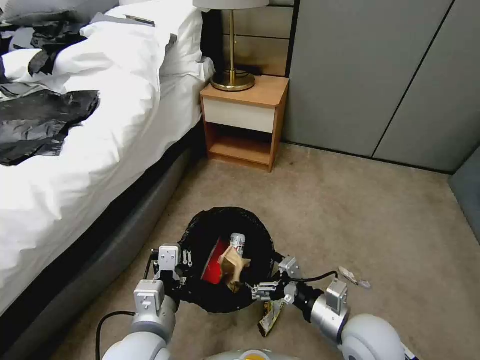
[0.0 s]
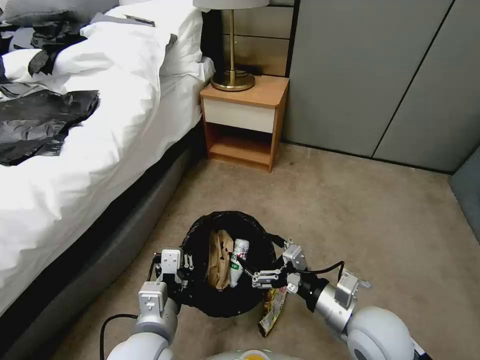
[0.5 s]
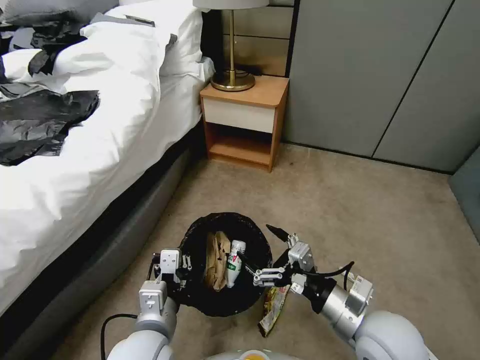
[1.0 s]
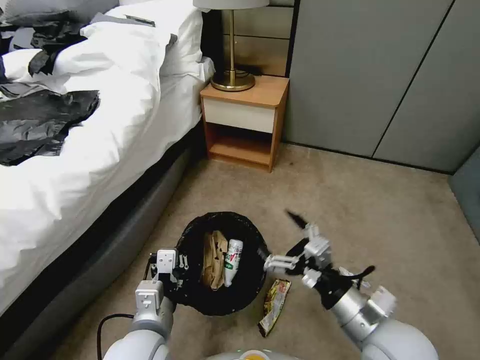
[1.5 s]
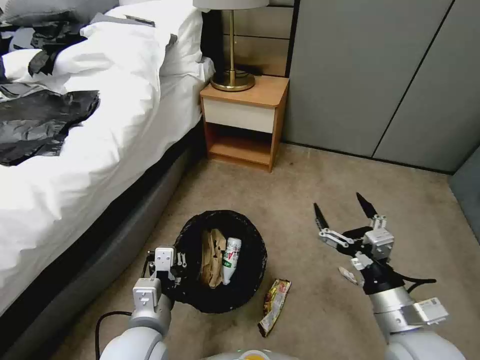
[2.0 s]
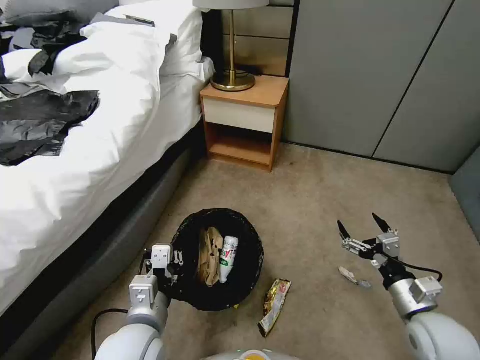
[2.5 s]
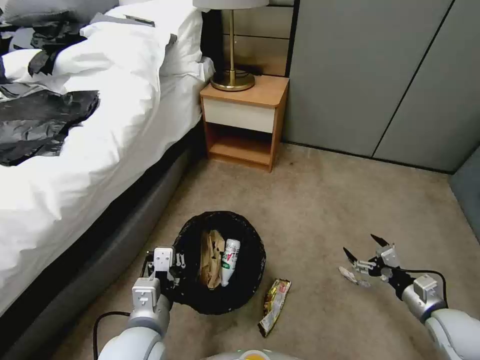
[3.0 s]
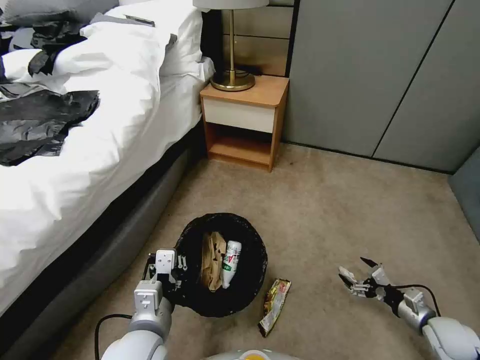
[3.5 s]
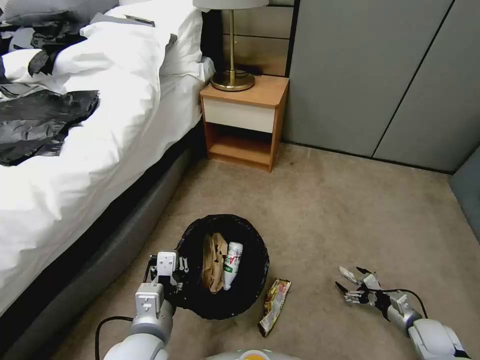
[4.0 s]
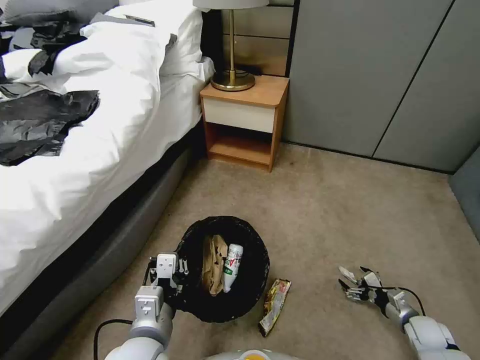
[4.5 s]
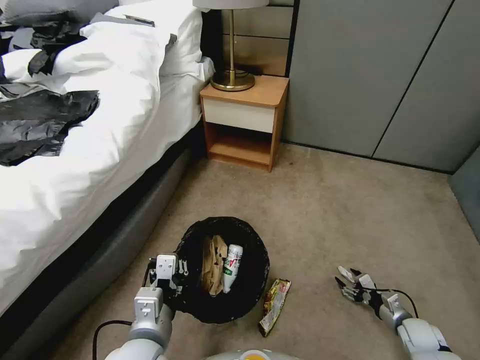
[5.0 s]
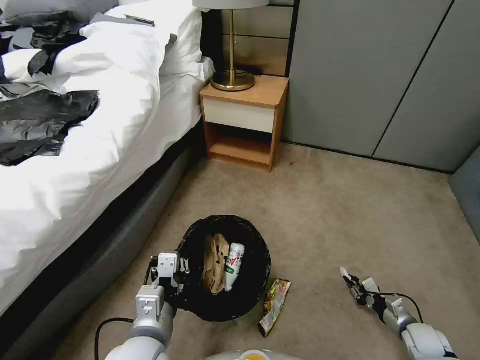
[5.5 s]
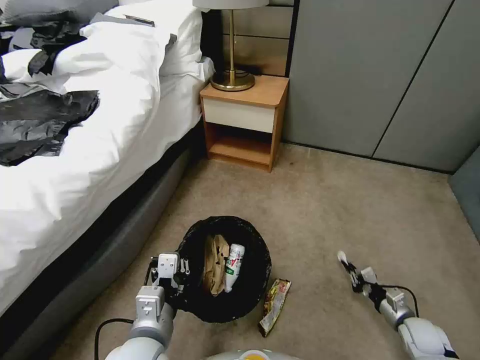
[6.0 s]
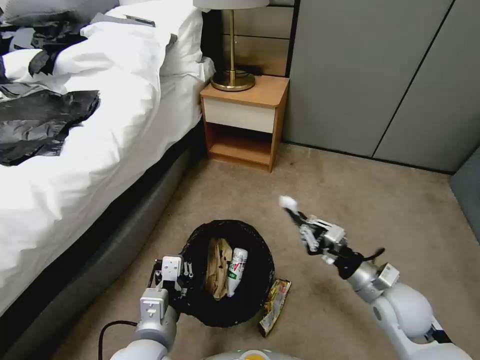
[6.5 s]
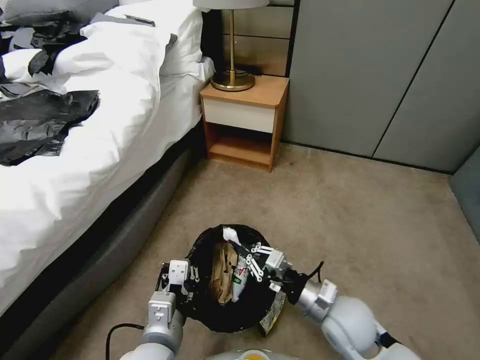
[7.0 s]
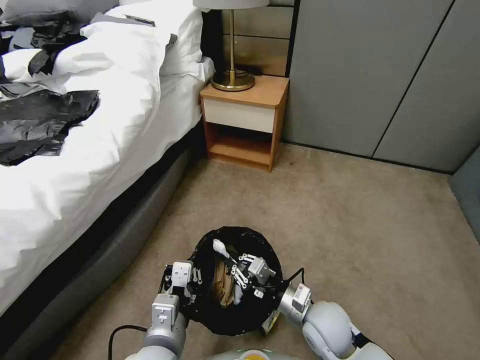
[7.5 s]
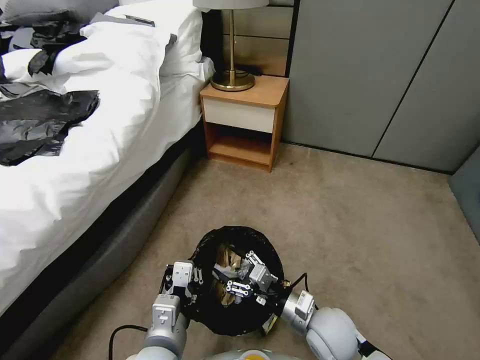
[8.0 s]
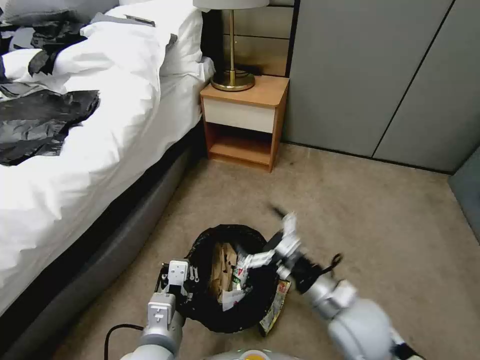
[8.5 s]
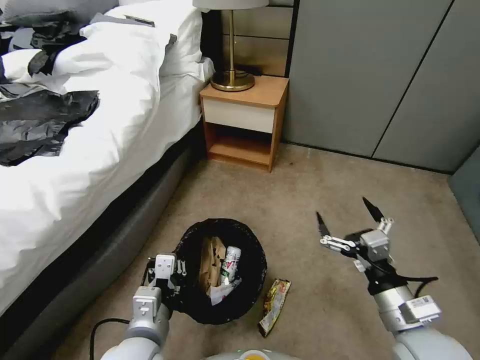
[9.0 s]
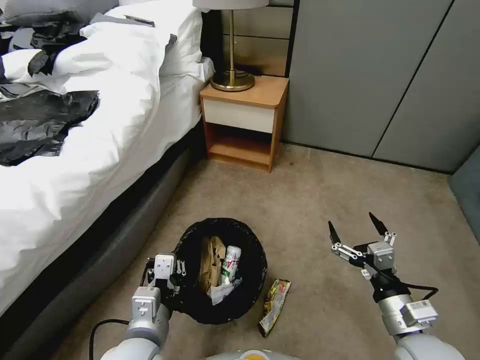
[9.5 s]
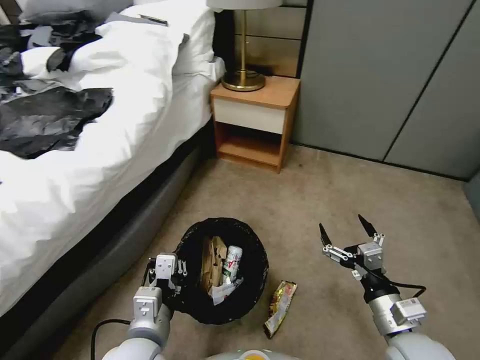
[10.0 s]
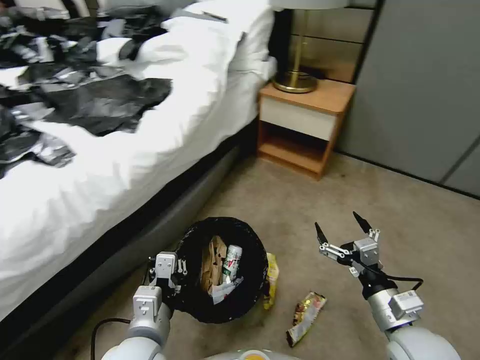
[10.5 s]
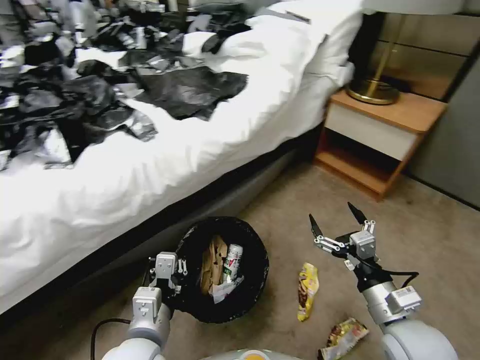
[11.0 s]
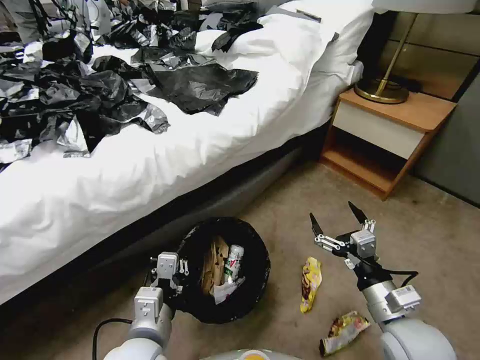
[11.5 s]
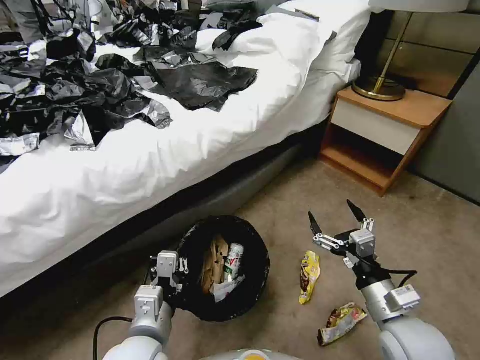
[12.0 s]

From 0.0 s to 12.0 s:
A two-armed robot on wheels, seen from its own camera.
Task of the whole recording: Pick up the trash bin, then pick up the garbage from the floor and place it into the trash bin.
From 0.0 s to 2.0 s: The right gripper travels to the right and upward by roughly 5 cm.
From 2.0 s to 4.0 s: The right gripper shifts about 30 cm downward and to the right.
From 4.0 s to 6.0 s: The right gripper closes up.
From 6.0 s to 8.0 s: The right gripper moves to the left and upward, about 30 cm, and opens up.
From 8.0 s to 10.0 s: The right gripper heads to the right, upward and backward, covering approximately 15 cm.

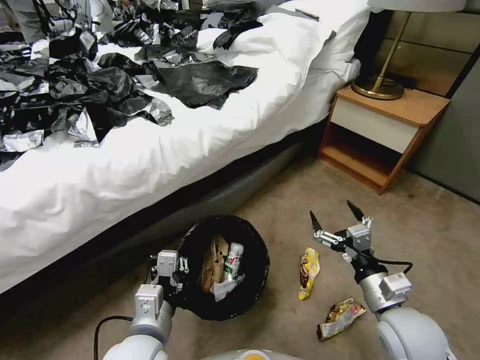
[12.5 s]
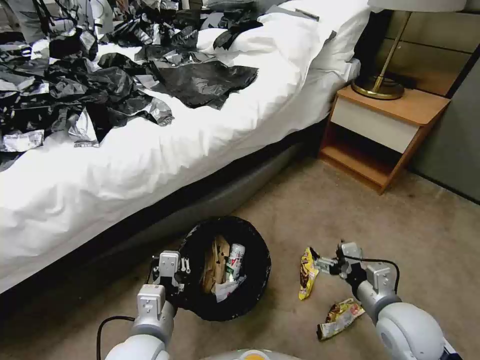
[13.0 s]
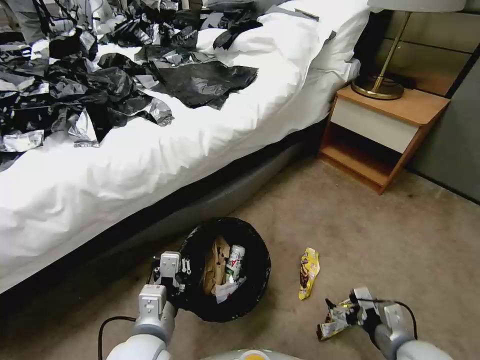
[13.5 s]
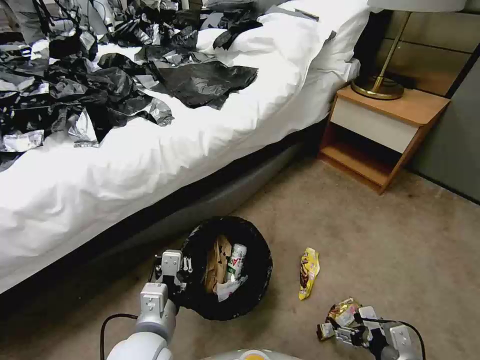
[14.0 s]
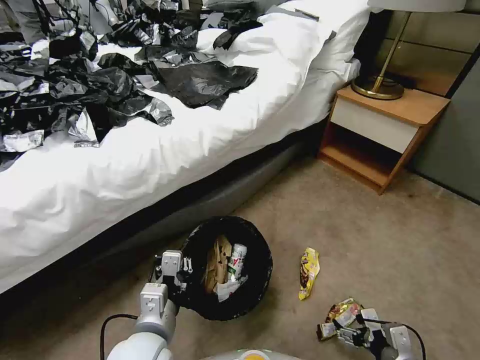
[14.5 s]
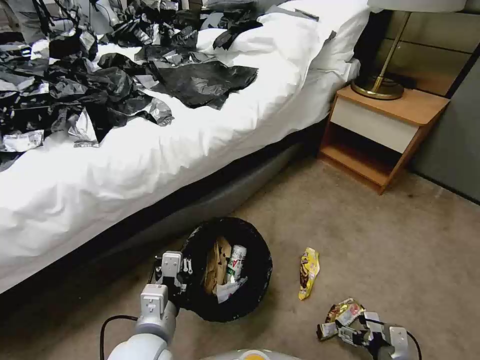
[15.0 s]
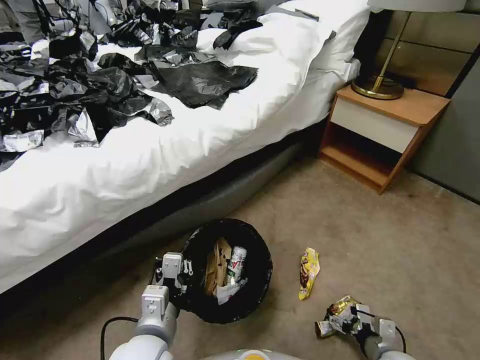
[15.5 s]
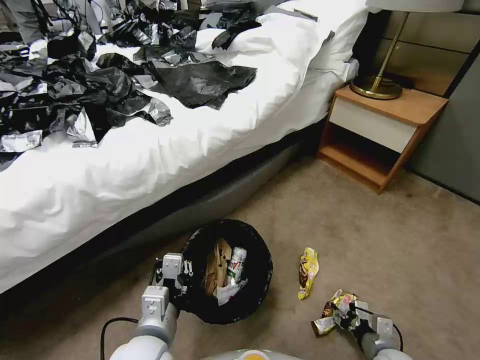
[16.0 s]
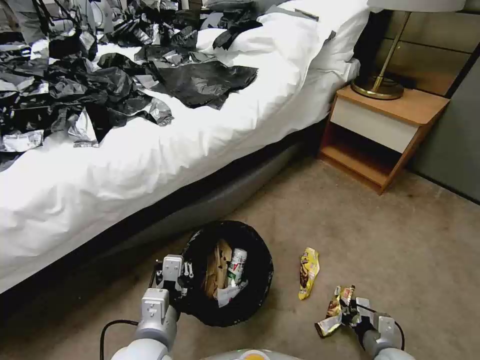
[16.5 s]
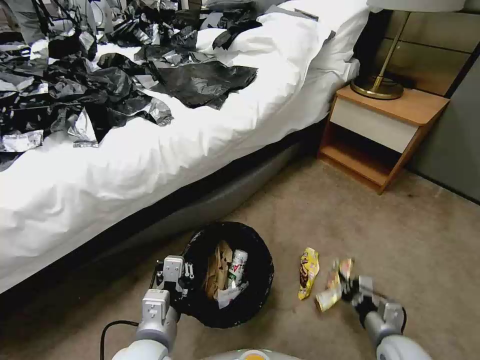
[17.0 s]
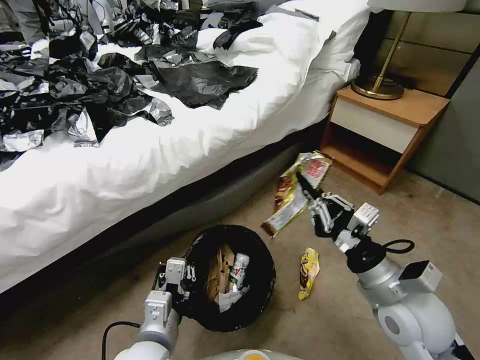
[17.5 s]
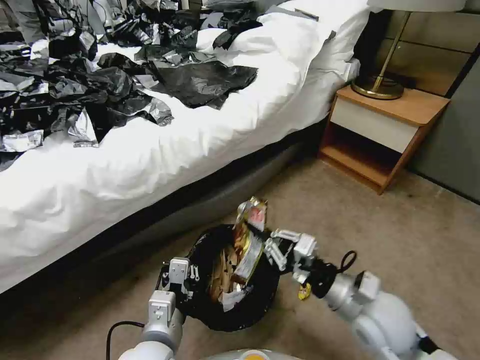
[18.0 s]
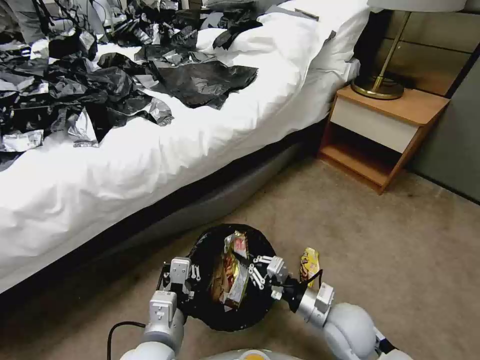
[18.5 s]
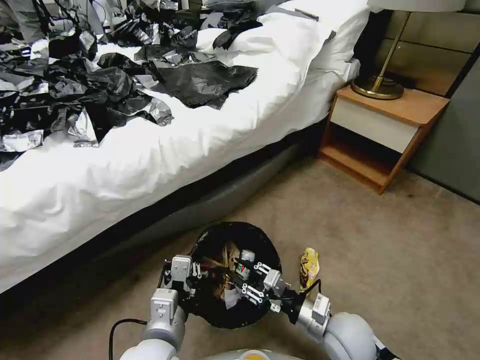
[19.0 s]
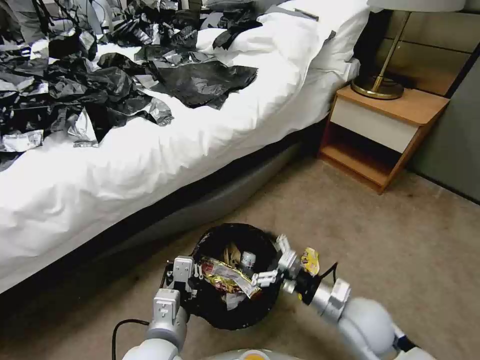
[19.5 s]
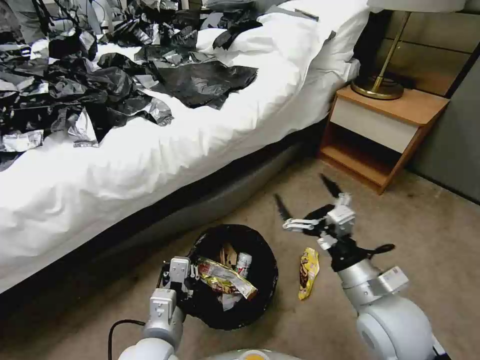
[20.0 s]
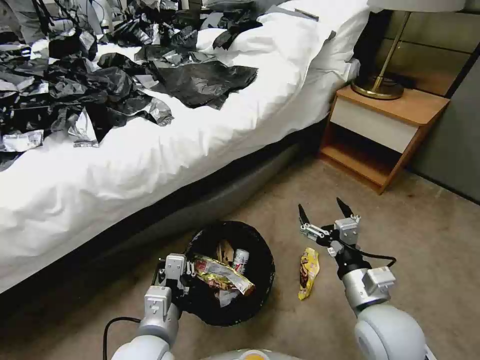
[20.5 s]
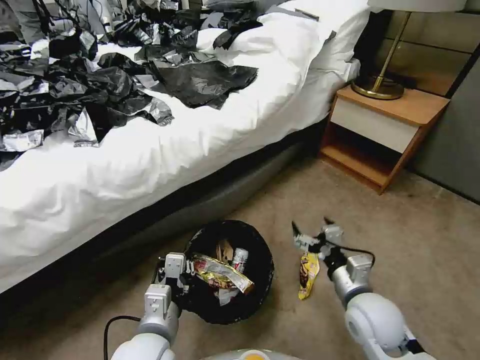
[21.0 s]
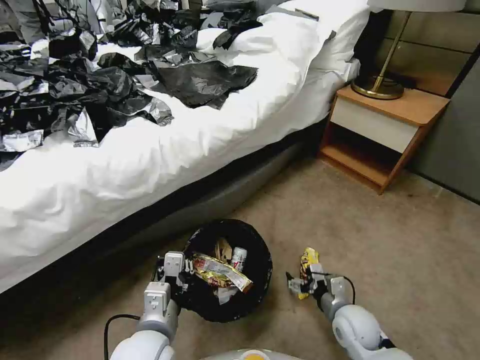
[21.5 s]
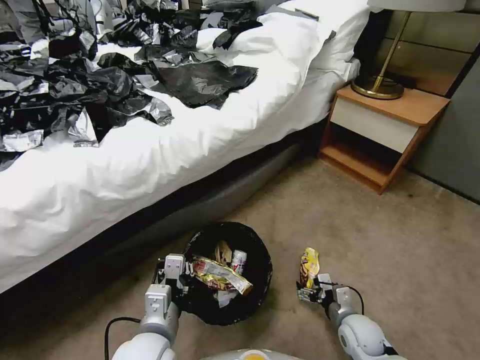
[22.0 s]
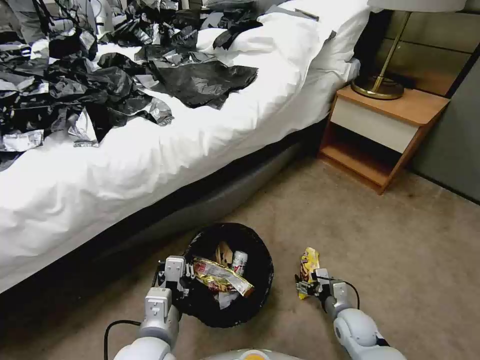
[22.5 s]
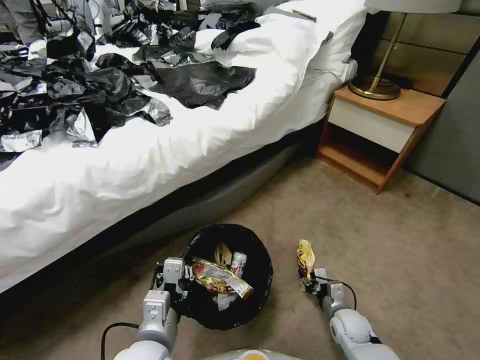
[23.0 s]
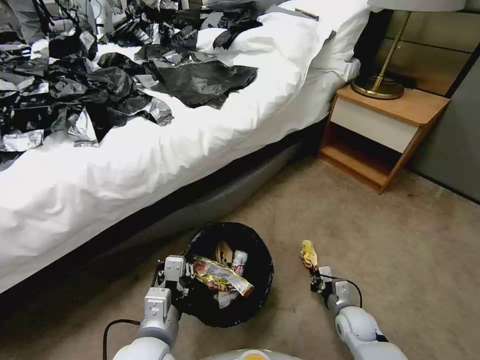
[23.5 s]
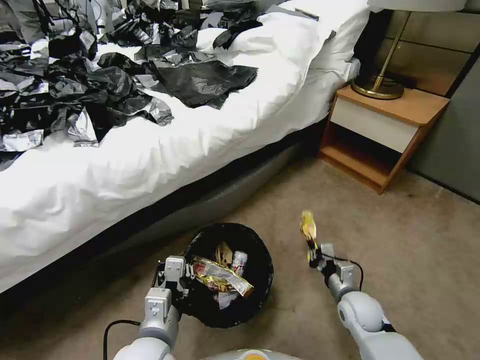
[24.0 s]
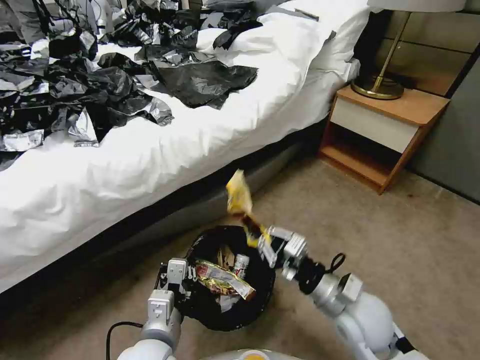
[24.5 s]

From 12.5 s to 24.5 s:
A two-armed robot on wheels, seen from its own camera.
Task of the whole recording: Pick up the trash bin, then pick up the garbage from the floor and place it into the trash bin.
From 12.5 s to 14.5 s: The right gripper travels downward, backward and to the right by approximately 15 cm.
From 14.5 s to 16.5 s: The right gripper goes approximately 10 cm downward, and closes up.
From 16.5 s to 18.5 s: The right gripper is displaced to the left, upward and forward by some 20 cm.
From 18.5 s to 20.5 s: The right gripper travels upward by roughly 10 cm, and opens its fingers.
From 20.5 s to 22.5 s: The right gripper goes some 25 cm downward.
From 22.5 s to 24.5 s: The right gripper is displaced upward by approximately 20 cm, and closes.

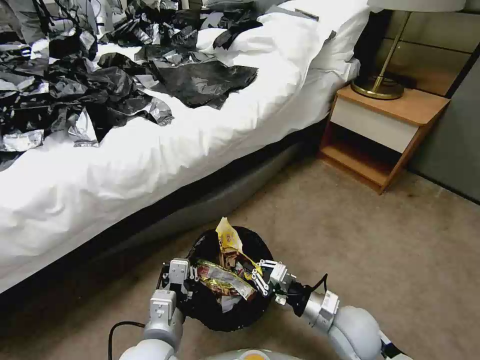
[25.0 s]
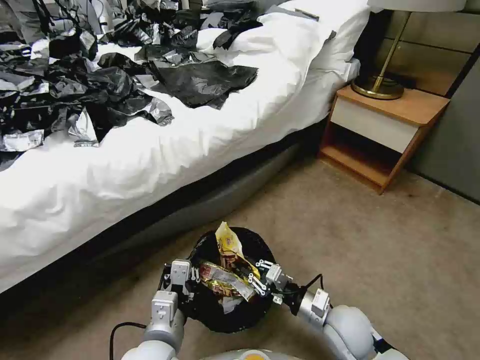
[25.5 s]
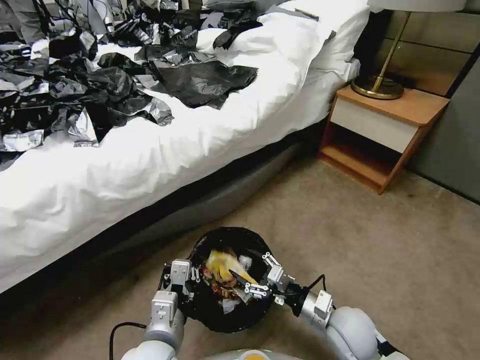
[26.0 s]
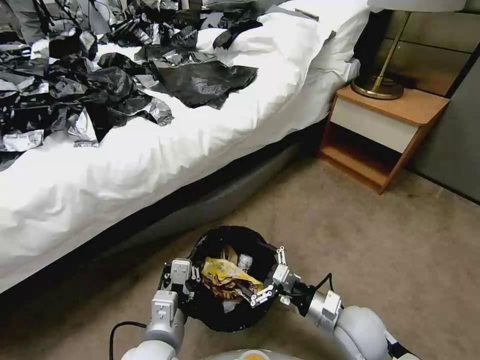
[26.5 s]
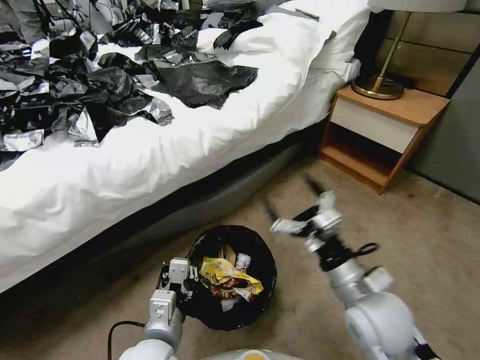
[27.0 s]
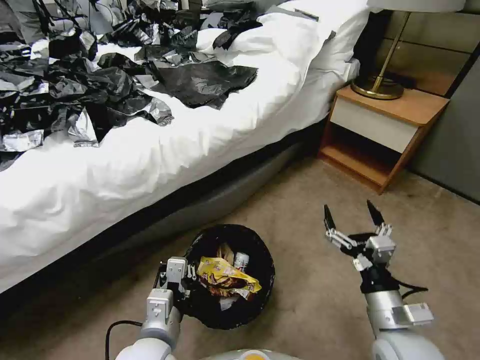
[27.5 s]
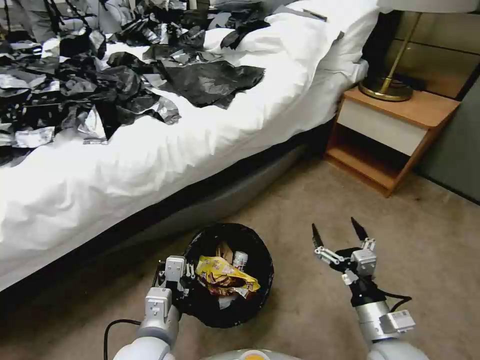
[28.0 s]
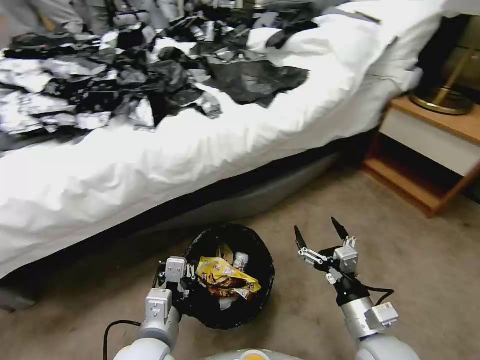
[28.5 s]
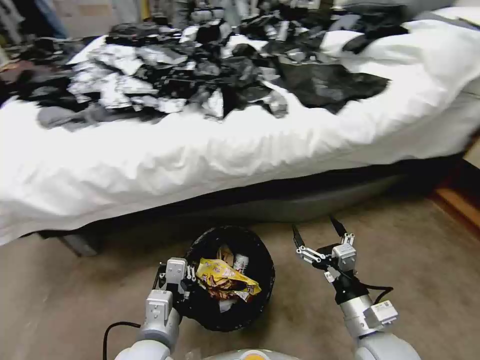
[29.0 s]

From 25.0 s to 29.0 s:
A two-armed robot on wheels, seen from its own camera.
Task of the whole recording: Pick up the trash bin, then pick up the garbage from the floor and place it into the trash bin.
From 25.0 s to 27.0 s: The right gripper moves upward, approximately 10 cm, and opens up.
From 27.0 s to 29.0 s: The right gripper goes approximately 10 cm downward and backward.
